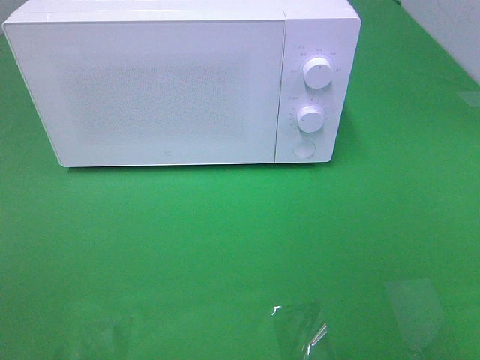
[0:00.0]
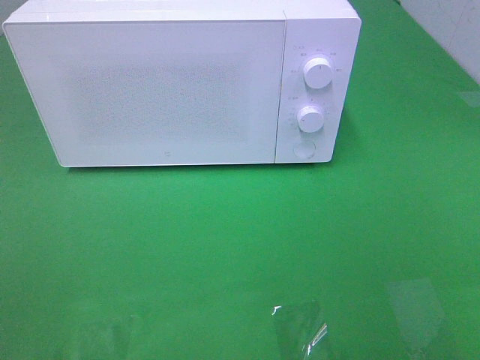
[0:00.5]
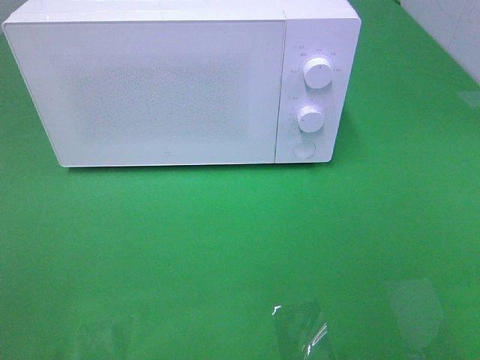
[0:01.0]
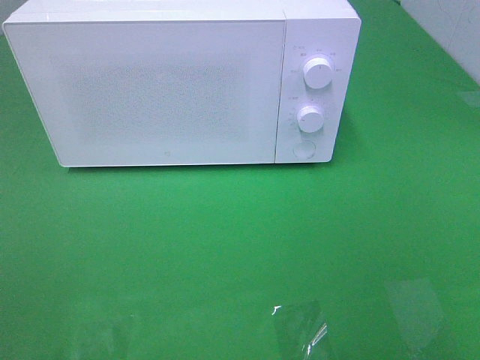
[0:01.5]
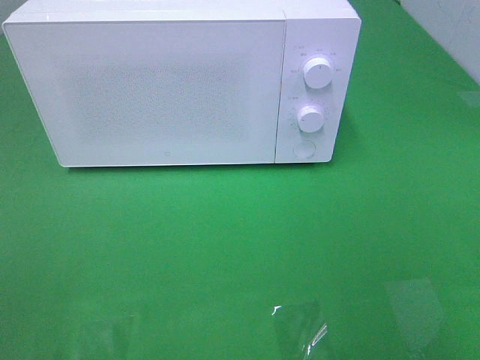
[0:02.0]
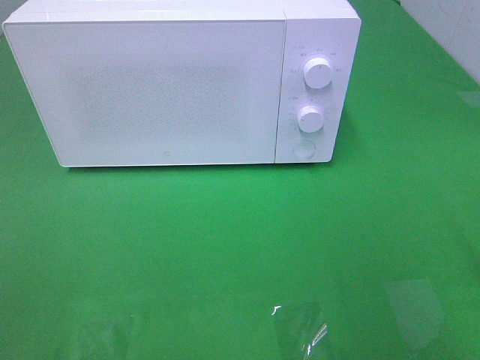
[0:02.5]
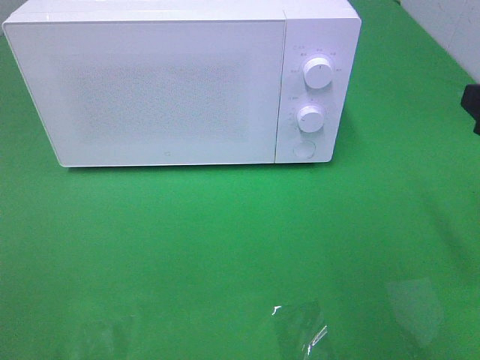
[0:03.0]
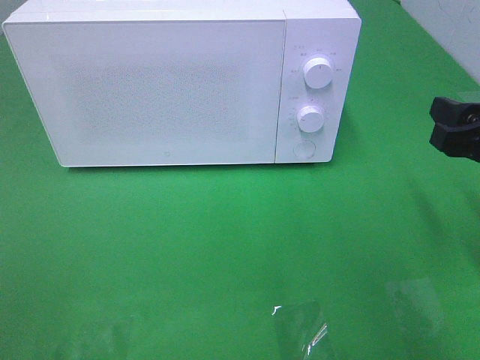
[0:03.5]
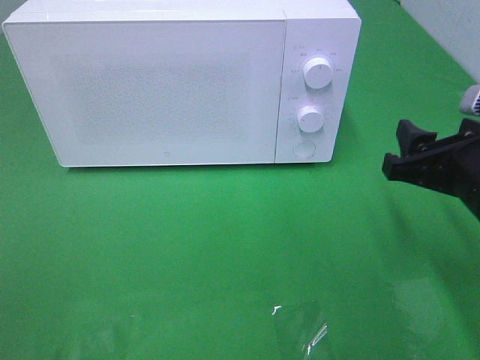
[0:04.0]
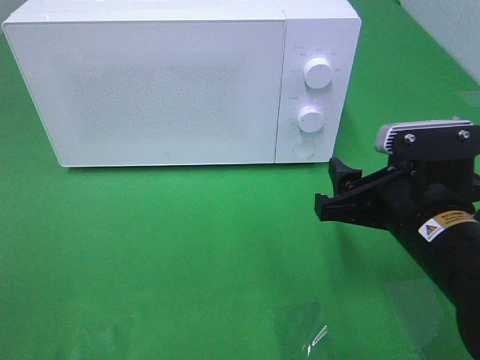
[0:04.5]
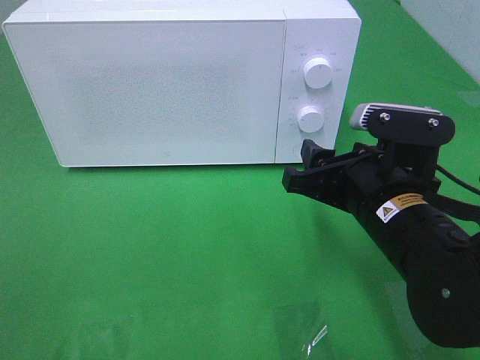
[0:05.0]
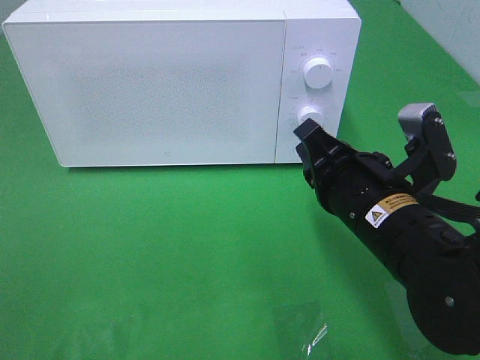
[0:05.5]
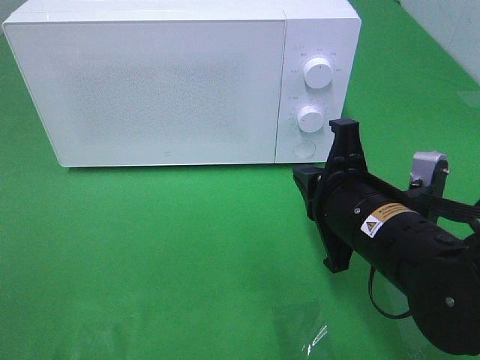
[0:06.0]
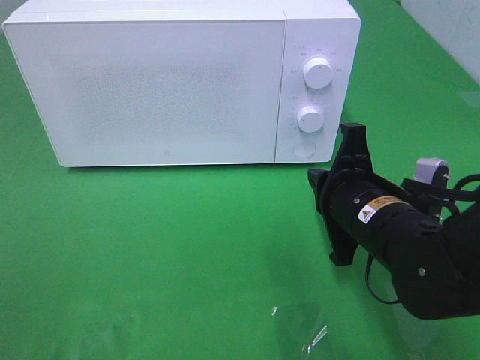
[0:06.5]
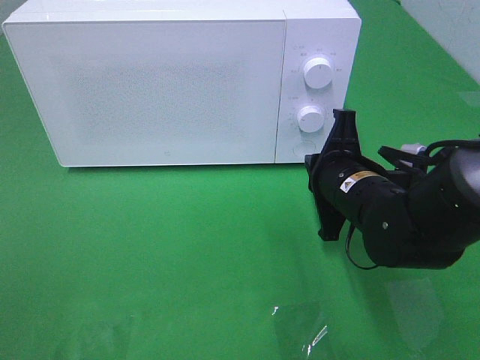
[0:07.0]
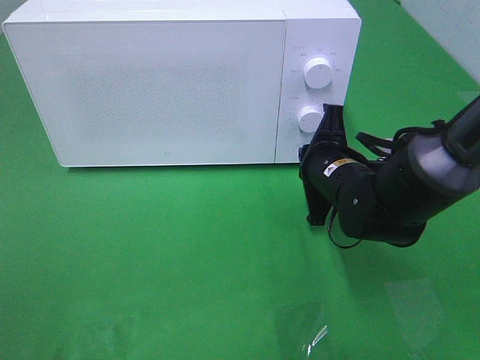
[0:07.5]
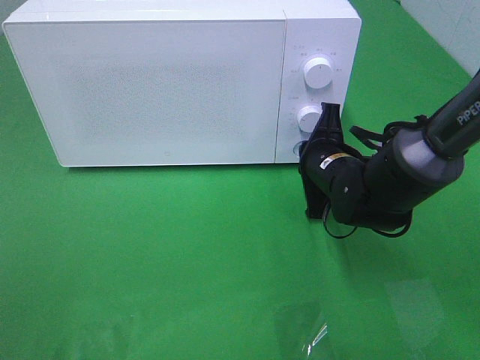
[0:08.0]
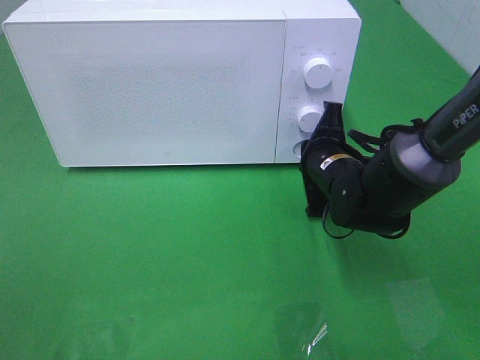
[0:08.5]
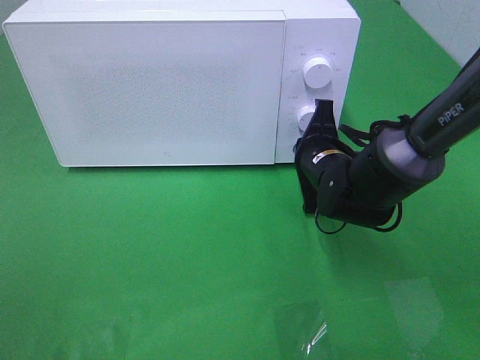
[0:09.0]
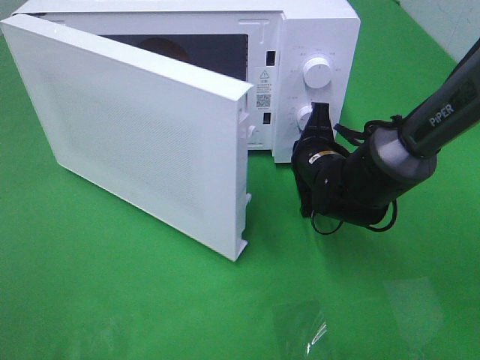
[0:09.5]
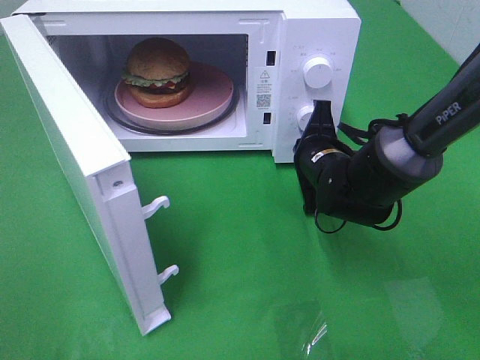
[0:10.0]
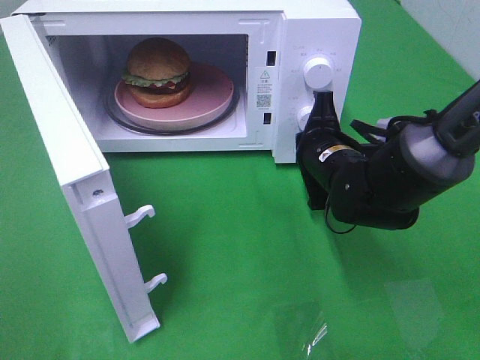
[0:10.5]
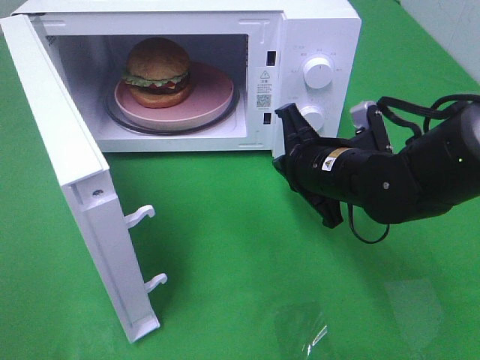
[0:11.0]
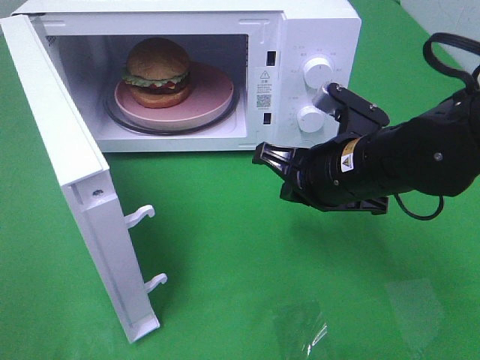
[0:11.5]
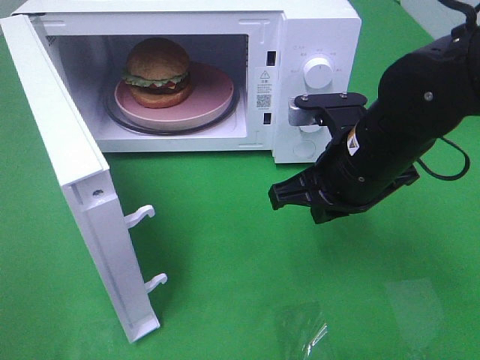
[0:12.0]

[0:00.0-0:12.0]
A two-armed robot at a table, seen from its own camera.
Task of the whole recording: Heat the burger.
Step, 0:00.0 to 0:10.5: Right hand: press the switch.
0:02.0 to 0:04.0: The right gripper heads forward, downward and to the left, covering approximately 20 cm.
0:04.0 to 0:06.0: The right gripper shifts about 10 cm to the left, and closes its fingers.
0:06.0 to 0:08.0: The right gripper travels forward and downward by approximately 15 cm.
0:10.0 to 0:12.0: The right gripper shifts approximately 15 cm upward and backward.

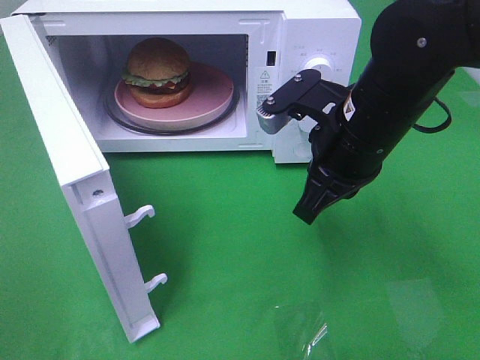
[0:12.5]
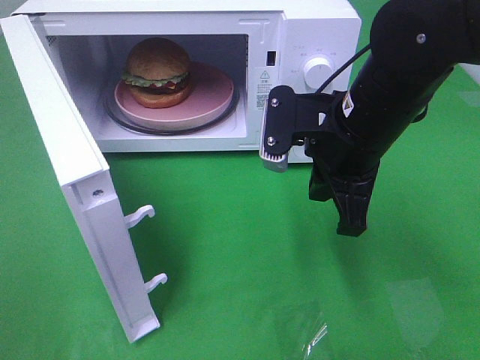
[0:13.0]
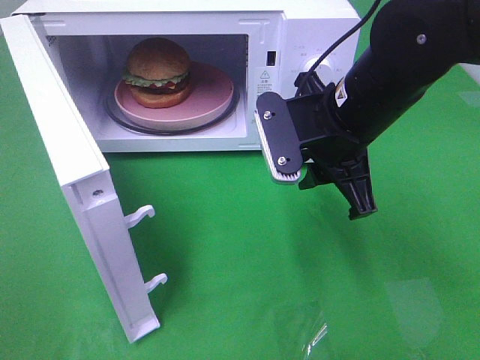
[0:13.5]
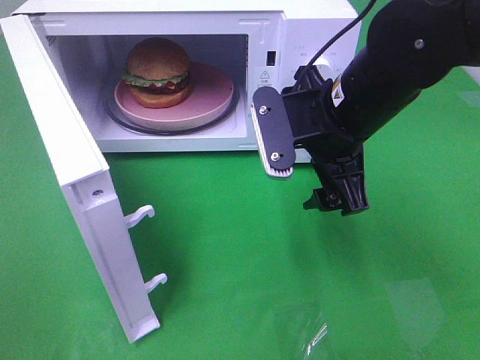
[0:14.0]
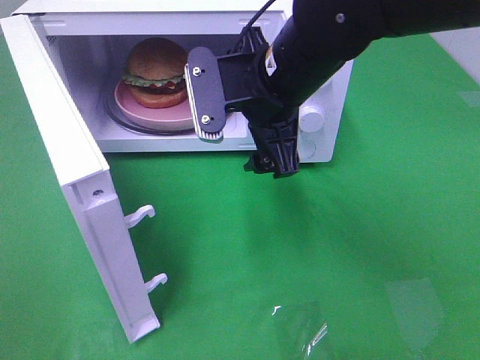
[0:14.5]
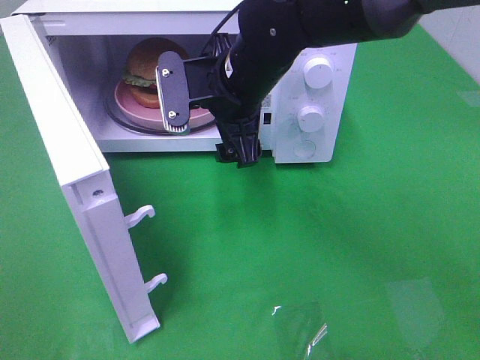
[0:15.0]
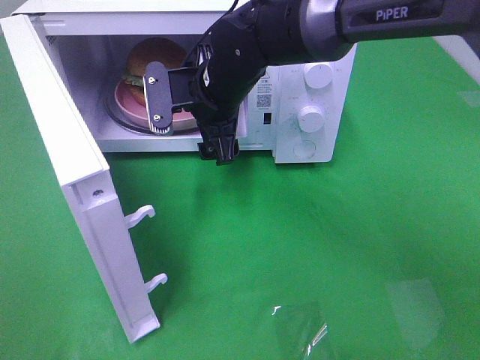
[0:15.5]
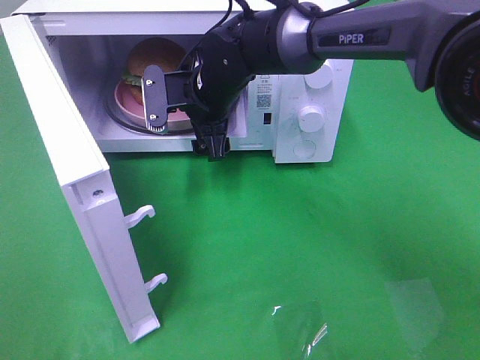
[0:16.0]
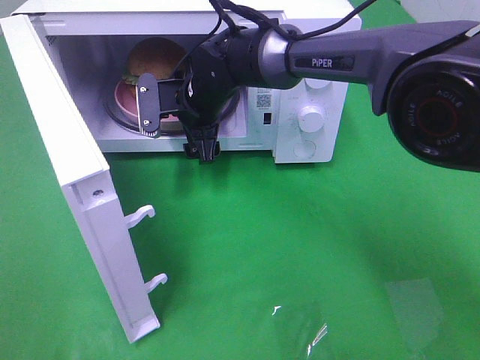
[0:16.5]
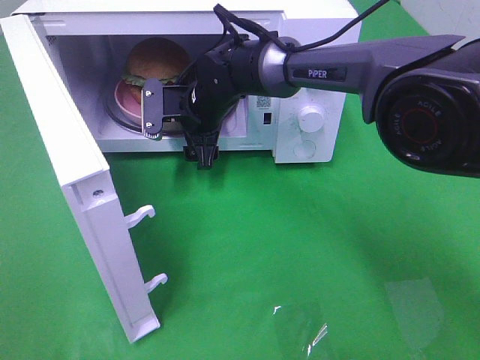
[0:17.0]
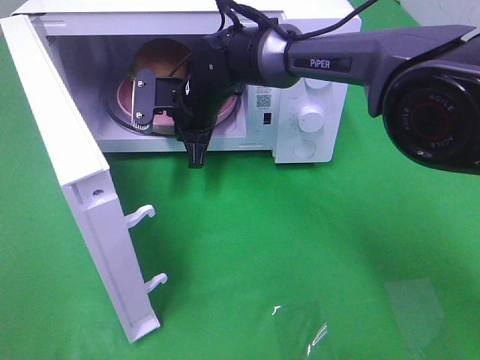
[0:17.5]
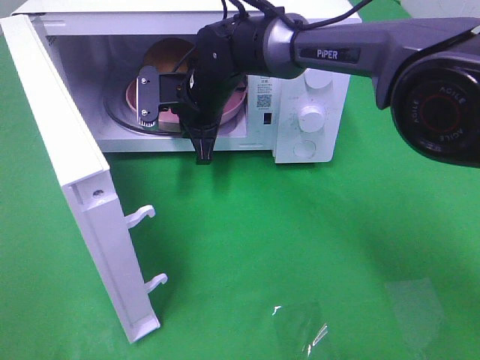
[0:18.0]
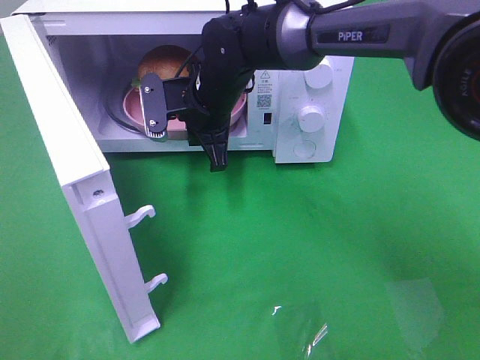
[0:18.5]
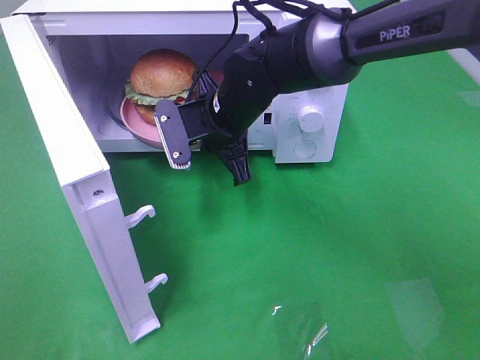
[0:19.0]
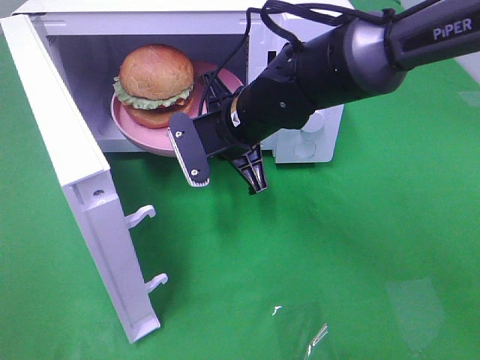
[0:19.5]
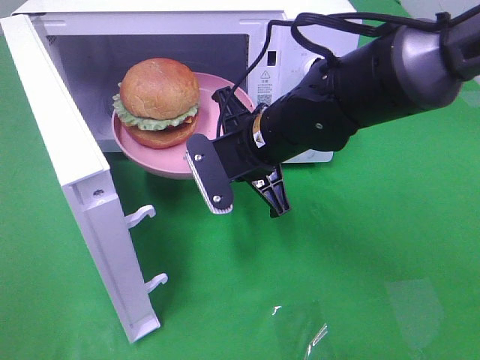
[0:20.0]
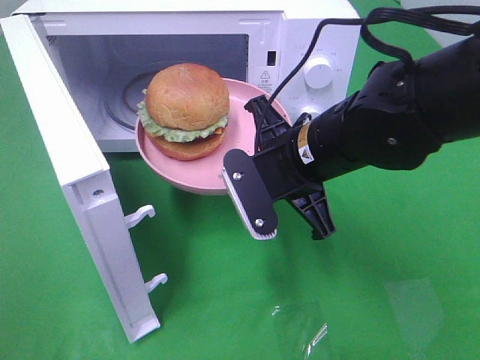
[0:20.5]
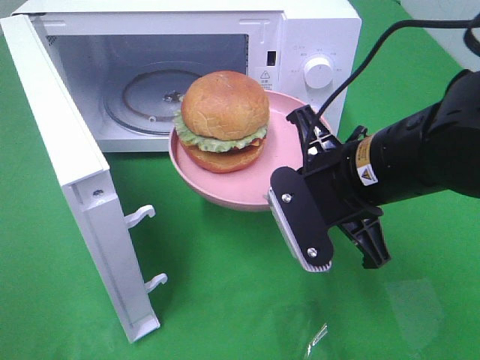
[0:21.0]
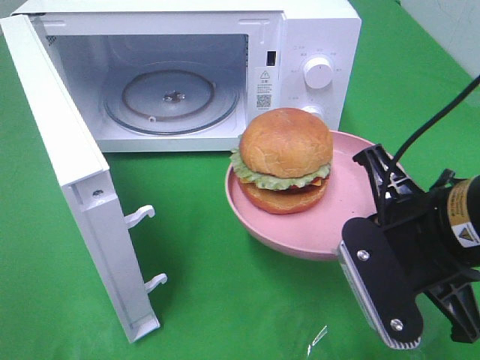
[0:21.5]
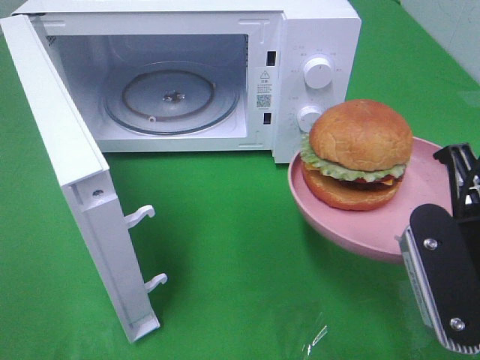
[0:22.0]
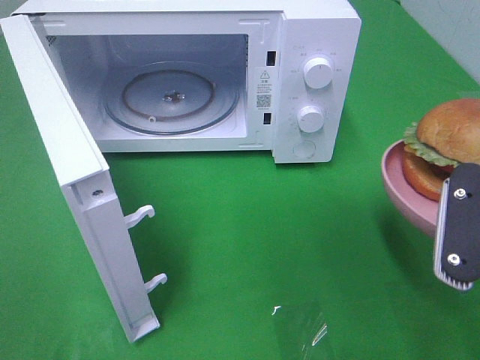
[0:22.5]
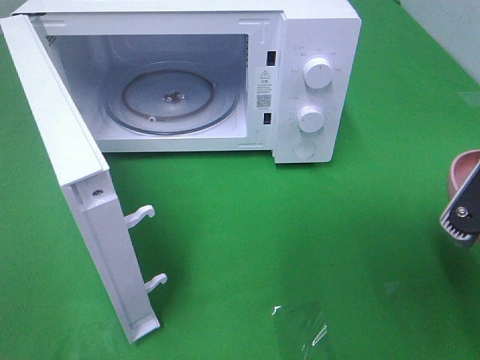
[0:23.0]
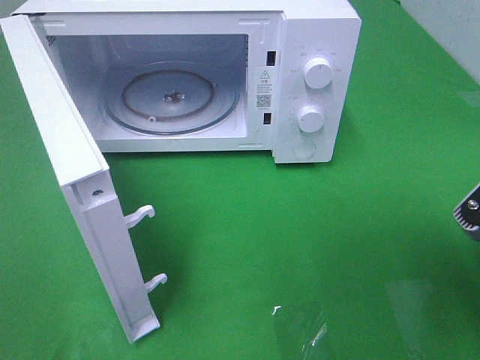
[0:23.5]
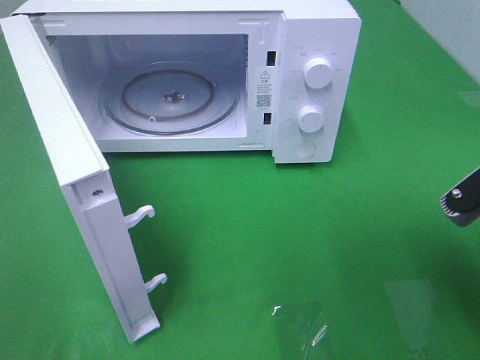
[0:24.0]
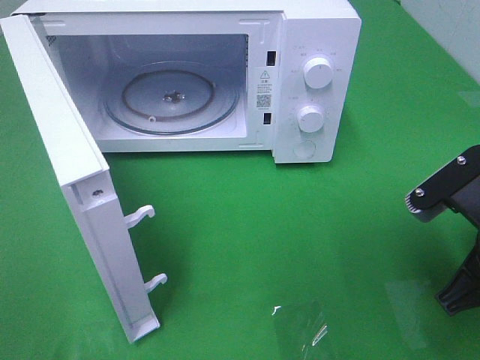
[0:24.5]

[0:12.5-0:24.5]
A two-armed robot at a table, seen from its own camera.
Task of the whole recording: Heat the burger.
Step, 0:12.5 to 0:17.5: Right hand: grab the plate with the hamburger.
0:12.5 to 0:14.5: The right gripper shifts roughly 5 cm to the left, and opens its fingers.
0:14.5 to 0:16.5: The right gripper goes some 20 cm forward, downward and to the left.
0:16.5 to 0:18.5: The right gripper closes up.
0:18.5 to 0:20.5: The right gripper goes roughly 15 cm backward and to the right.
0:20.5 to 0:22.5: The right gripper moves to the right and backward, some 20 cm.
0:22.5 to 0:24.5: The right gripper is displaced downward by approximately 5 cm.

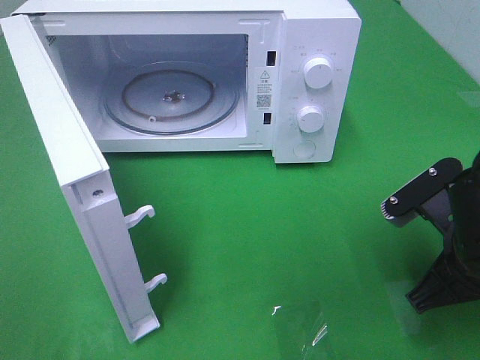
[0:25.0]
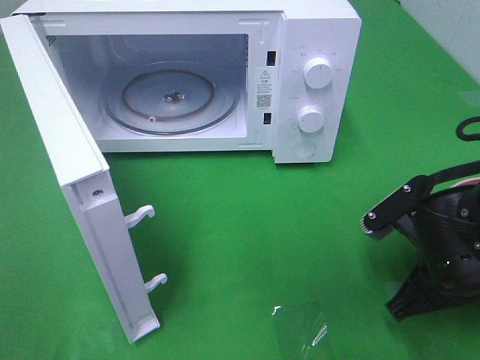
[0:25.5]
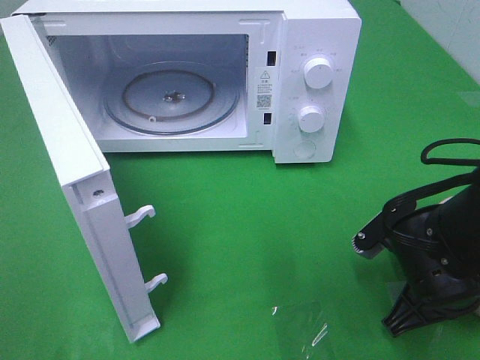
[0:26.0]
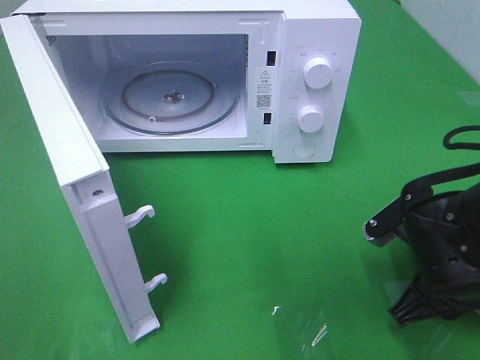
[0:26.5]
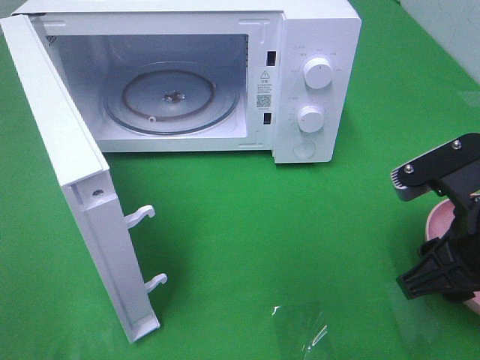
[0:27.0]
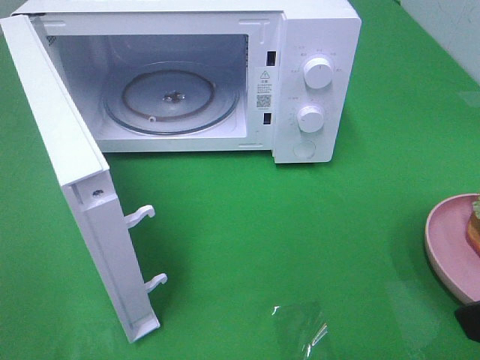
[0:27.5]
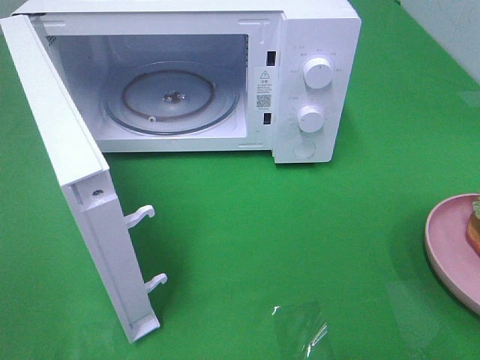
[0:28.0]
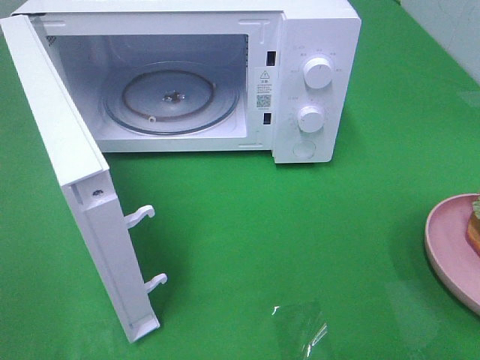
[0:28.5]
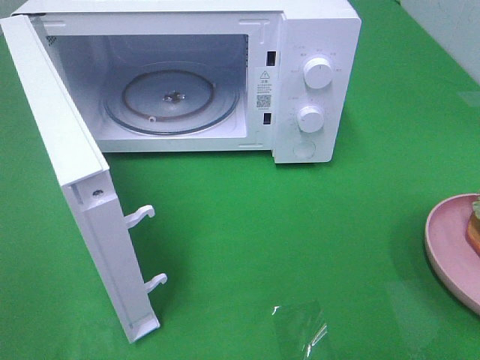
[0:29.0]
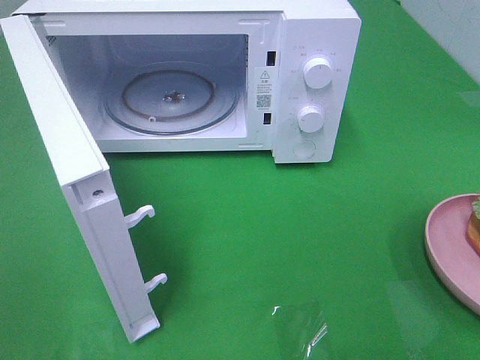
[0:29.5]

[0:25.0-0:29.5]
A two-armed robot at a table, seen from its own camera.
Task of the whole recording: Heat the burger.
0:25.0 to 0:27.0: The right gripper opens up.
0:27.0 to 0:29.5: The right gripper moves backward, upward and to the right, some 20 cm.
